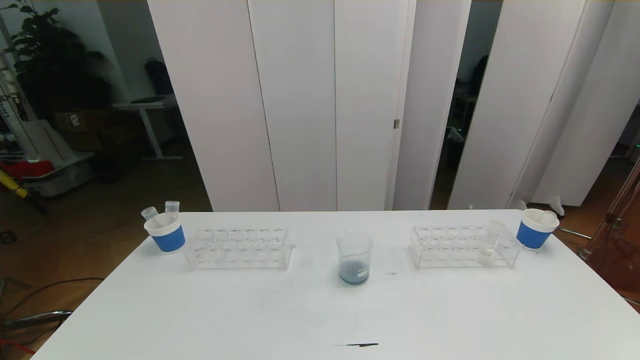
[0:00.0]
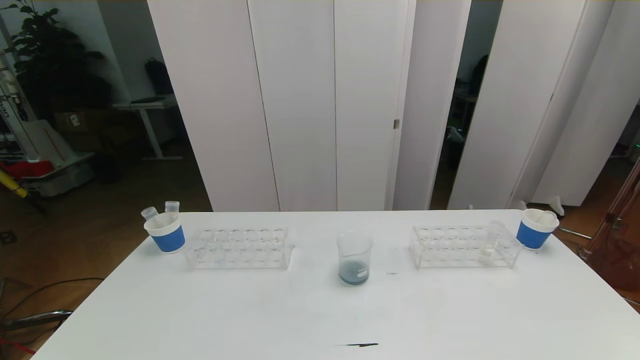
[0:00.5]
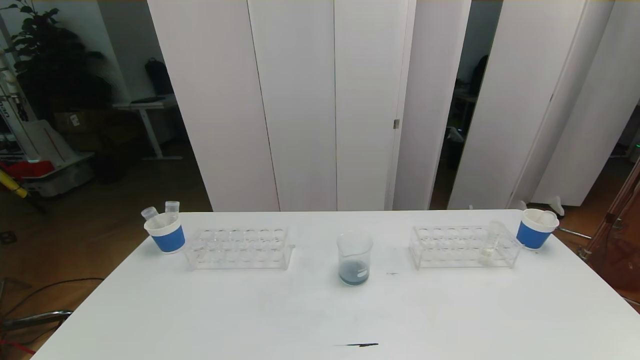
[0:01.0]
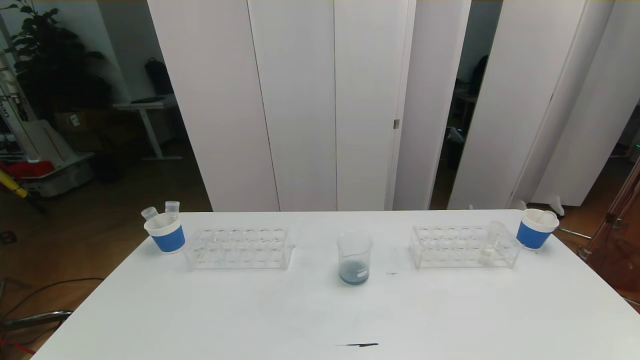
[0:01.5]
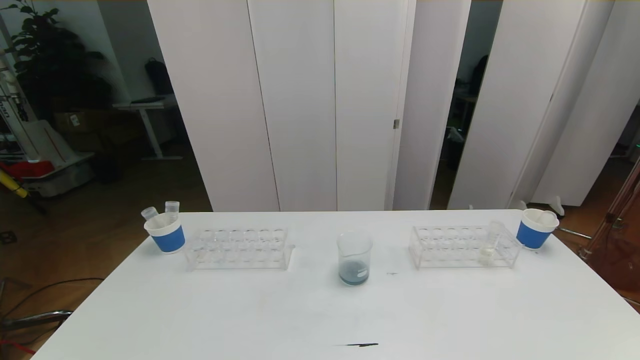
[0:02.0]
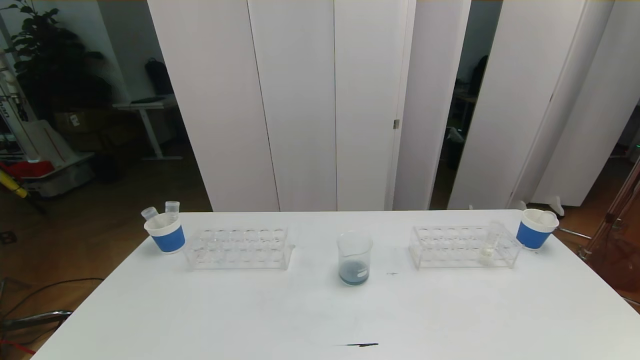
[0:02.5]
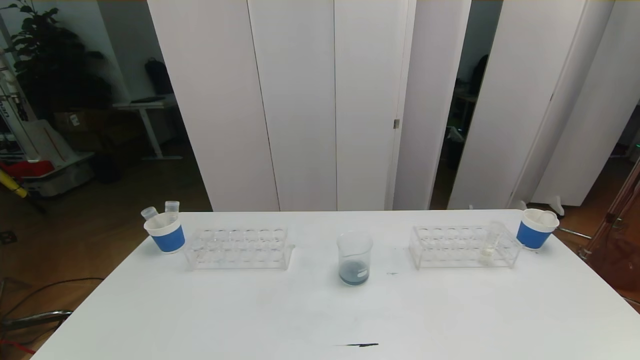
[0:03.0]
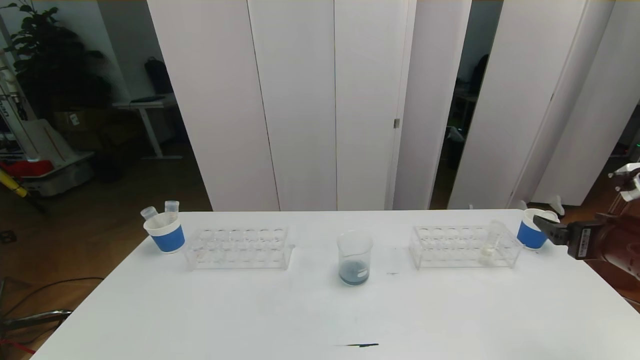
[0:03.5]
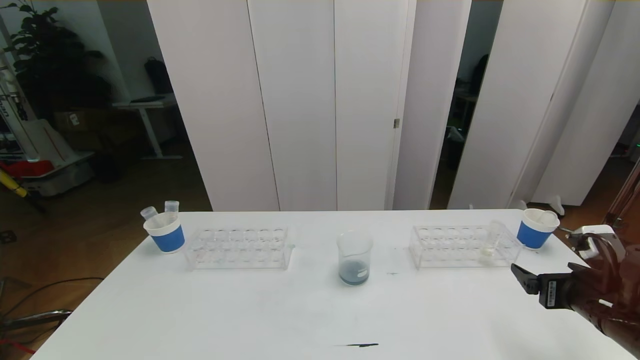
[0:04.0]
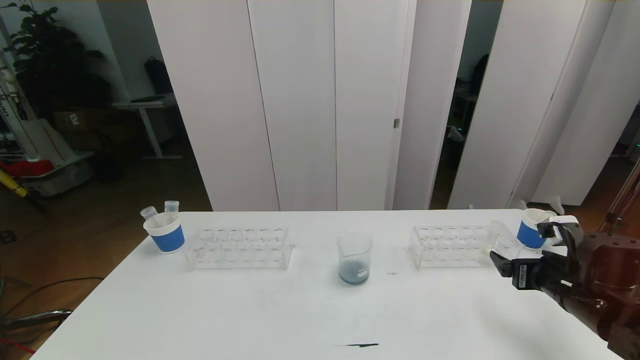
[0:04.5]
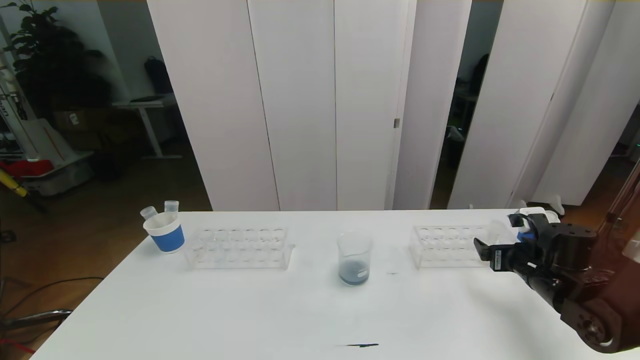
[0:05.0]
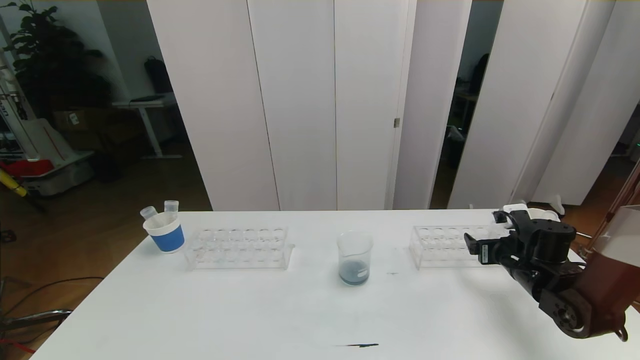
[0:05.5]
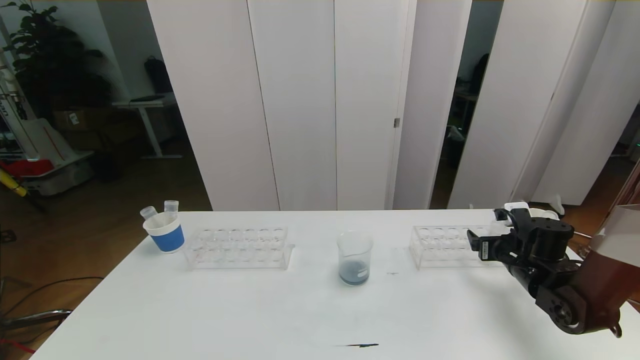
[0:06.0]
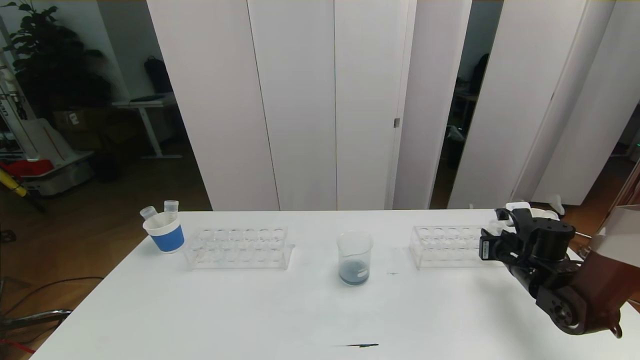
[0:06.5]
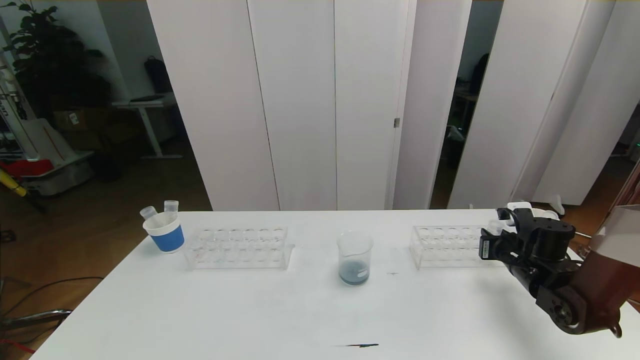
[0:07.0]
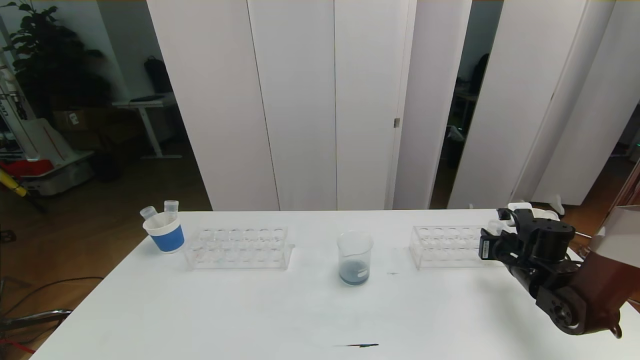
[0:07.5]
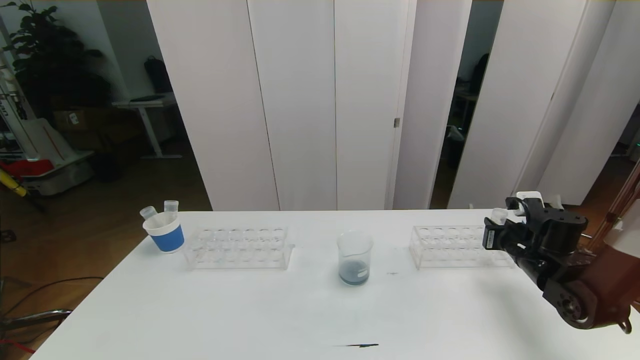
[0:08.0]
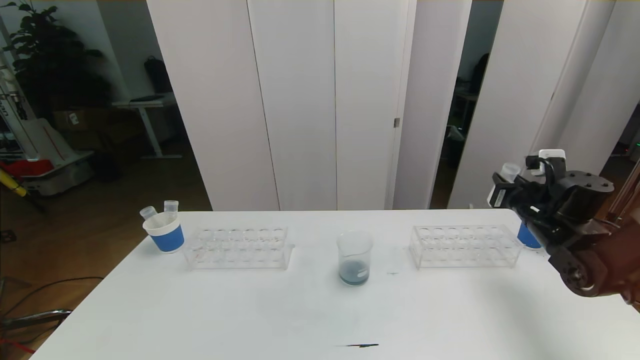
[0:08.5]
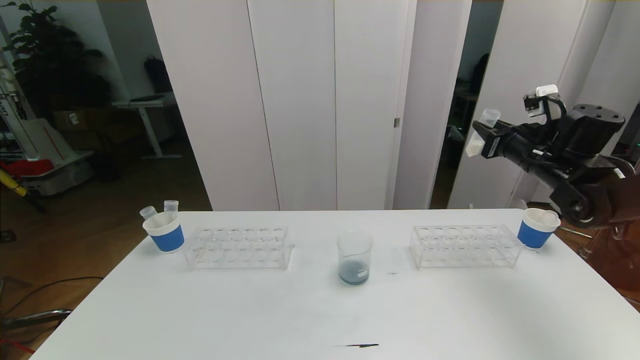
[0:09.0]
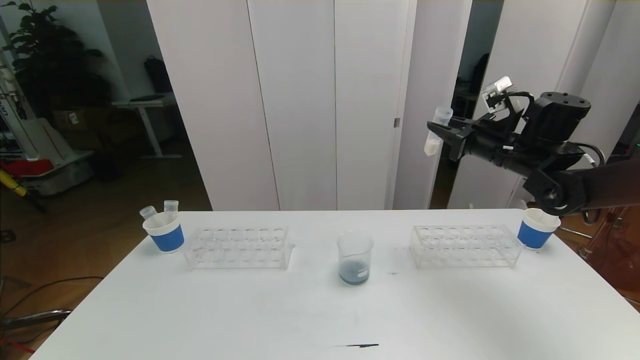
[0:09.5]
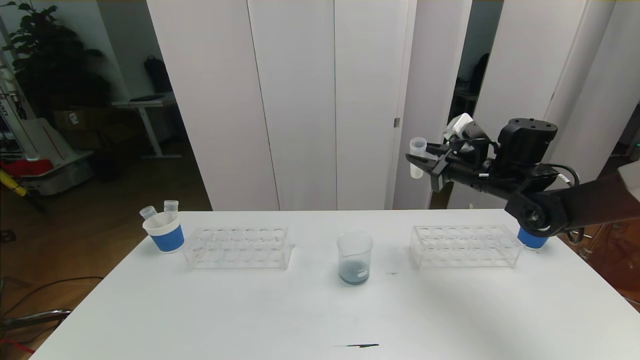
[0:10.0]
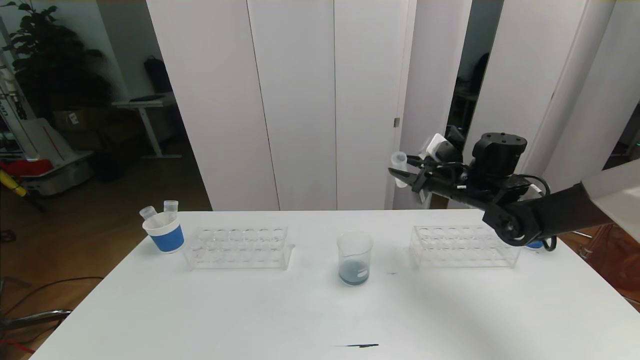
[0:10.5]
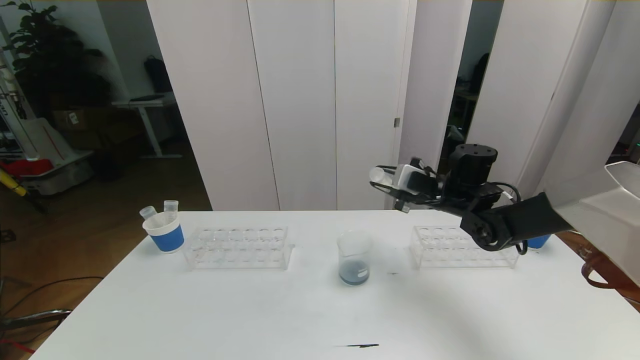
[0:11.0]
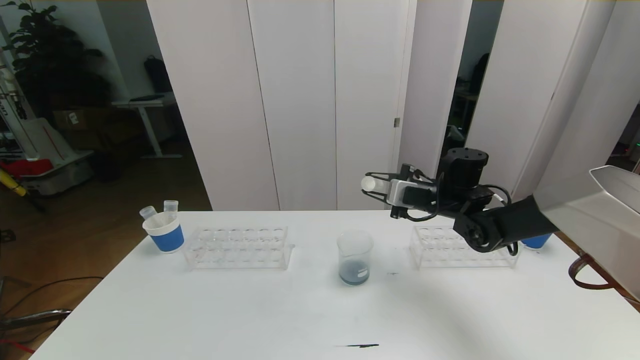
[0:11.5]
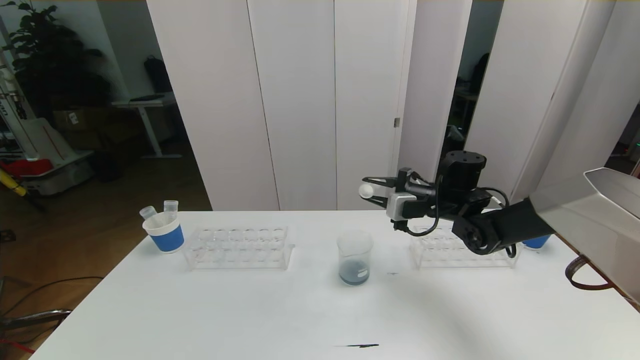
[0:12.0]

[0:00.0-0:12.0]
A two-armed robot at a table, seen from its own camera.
Task of the whole recording: pick up the test tube with red pigment the test tube with blue pigment and the test tube with white pigment by grippers and pour them into the beaker.
0:02.0 to 0:04.0: The right gripper travels forward by approximately 25 cm.
0:04.0 to 0:06.0: The right gripper heads forward and downward, covering roughly 15 cm.
0:06.0 to 0:08.0: The right gripper closes.
0:08.0 to 0:10.0: The right gripper shifts about 15 cm upward, to the left and forward.
0:10.0 to 0:12.0: The right gripper shifts approximately 10 cm to the left and downward.

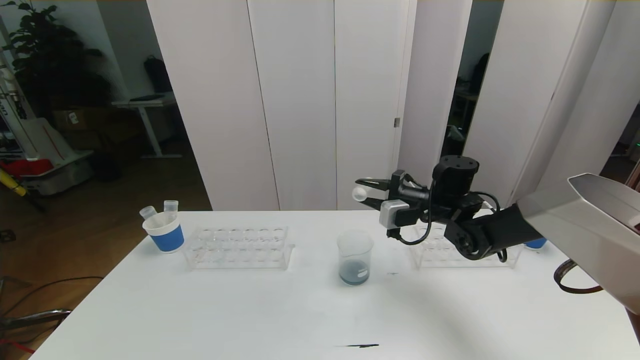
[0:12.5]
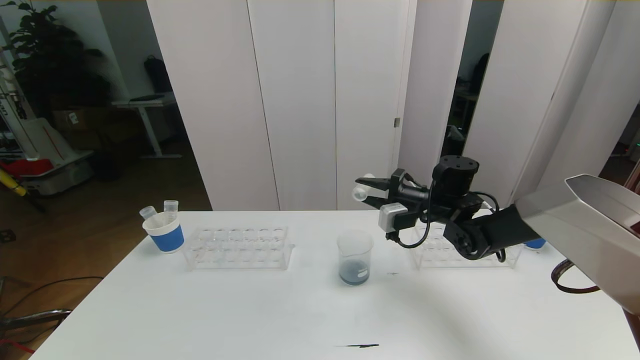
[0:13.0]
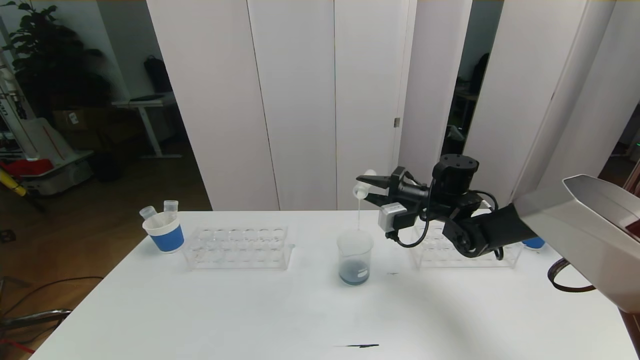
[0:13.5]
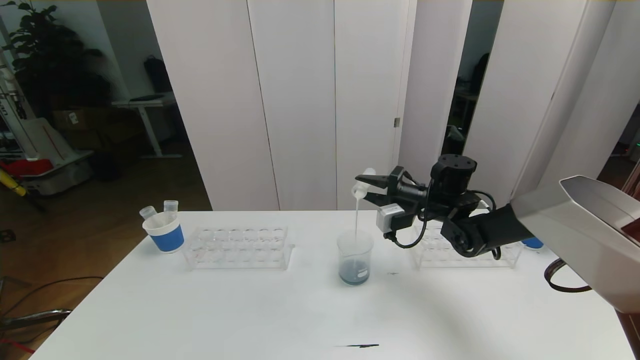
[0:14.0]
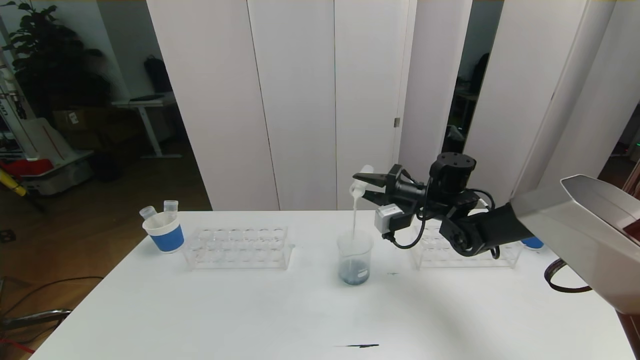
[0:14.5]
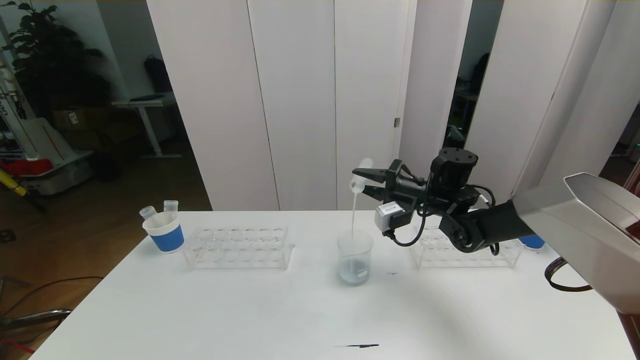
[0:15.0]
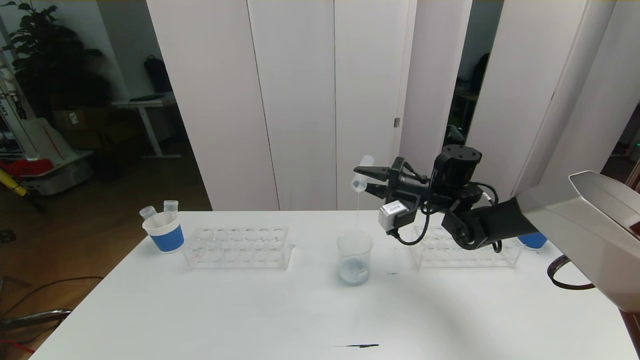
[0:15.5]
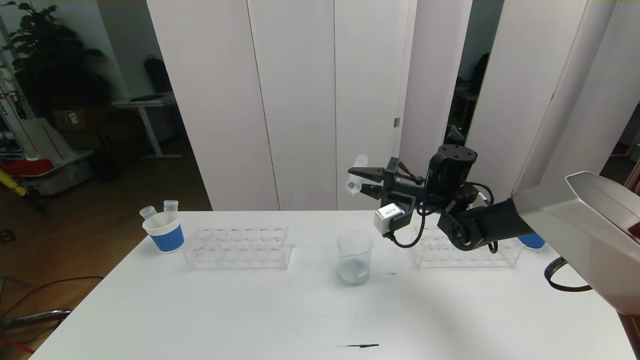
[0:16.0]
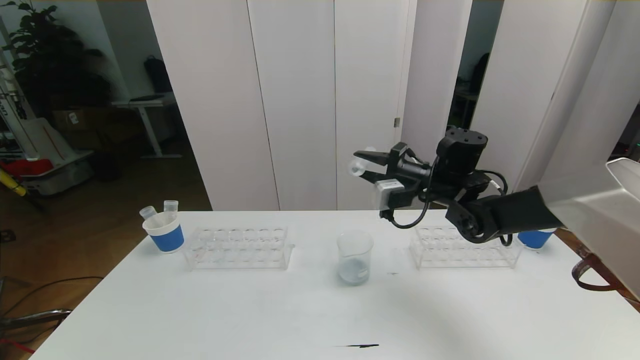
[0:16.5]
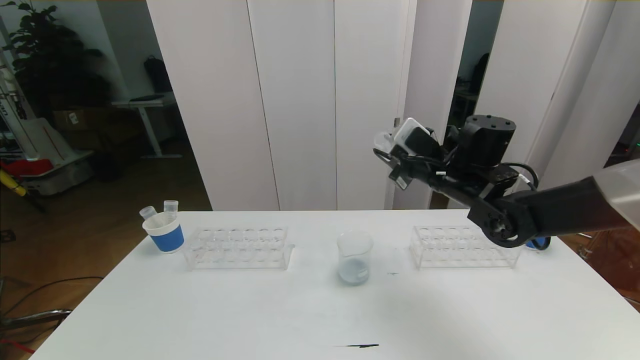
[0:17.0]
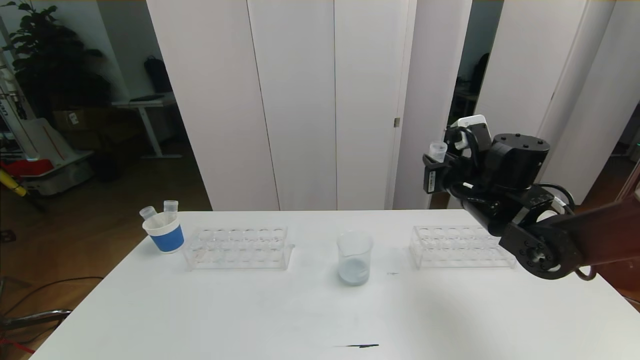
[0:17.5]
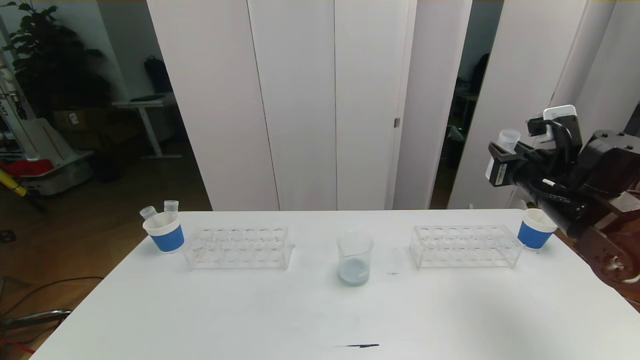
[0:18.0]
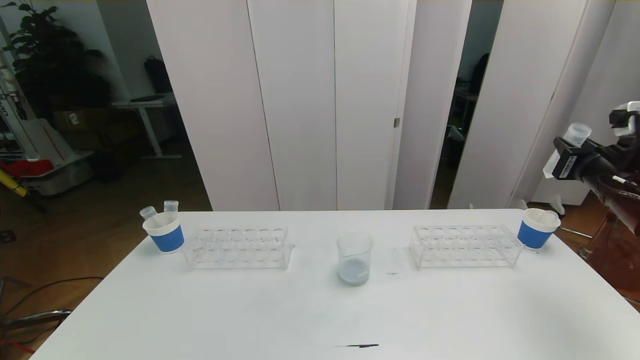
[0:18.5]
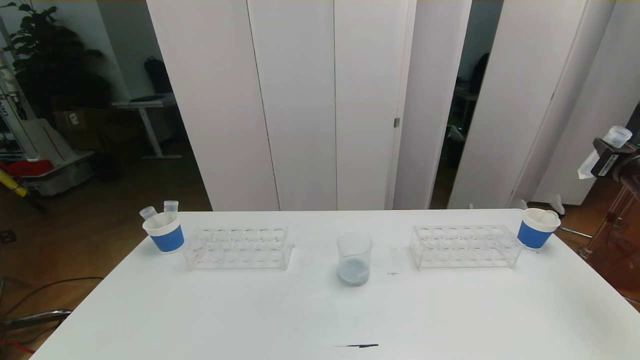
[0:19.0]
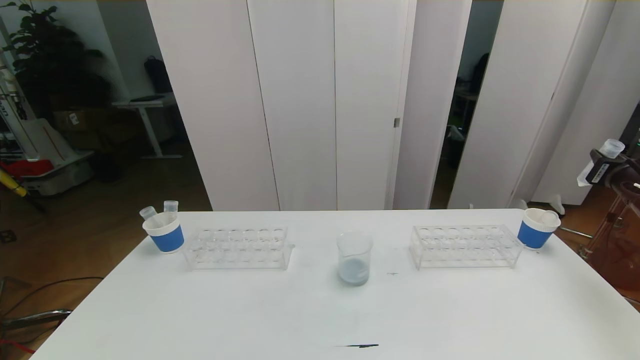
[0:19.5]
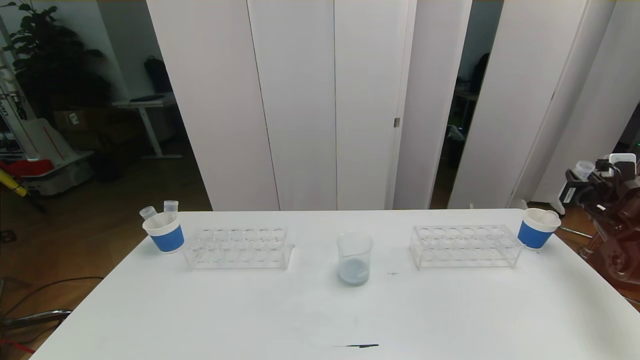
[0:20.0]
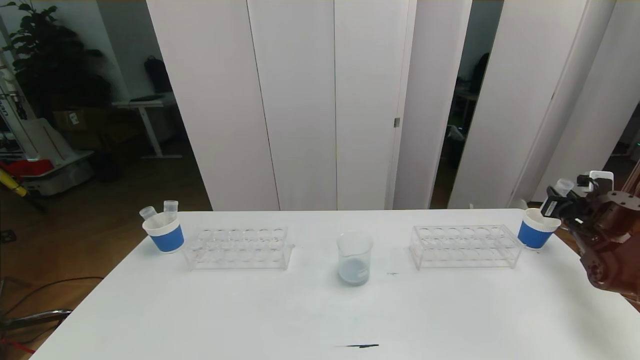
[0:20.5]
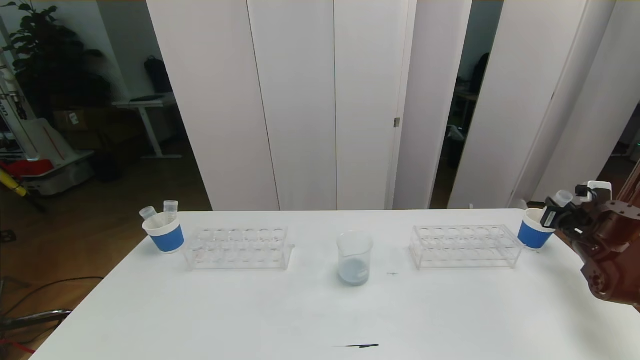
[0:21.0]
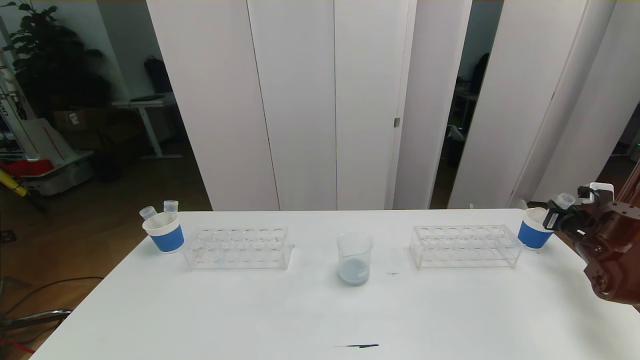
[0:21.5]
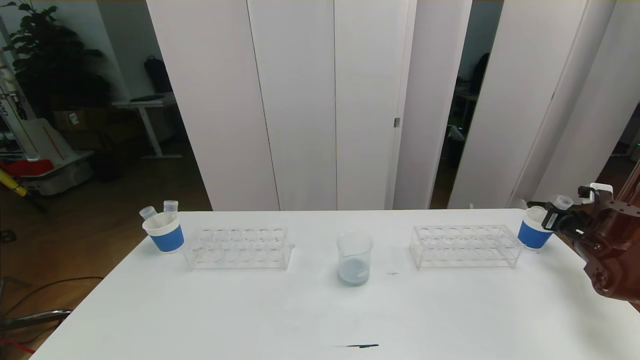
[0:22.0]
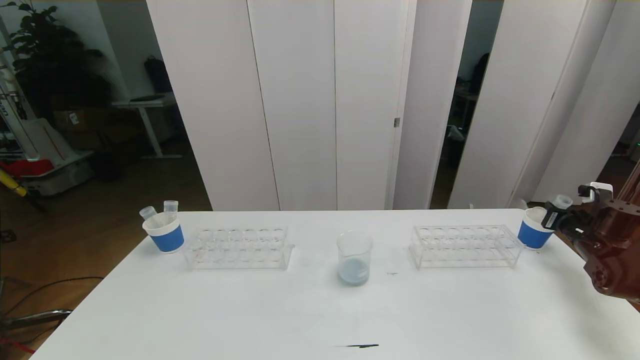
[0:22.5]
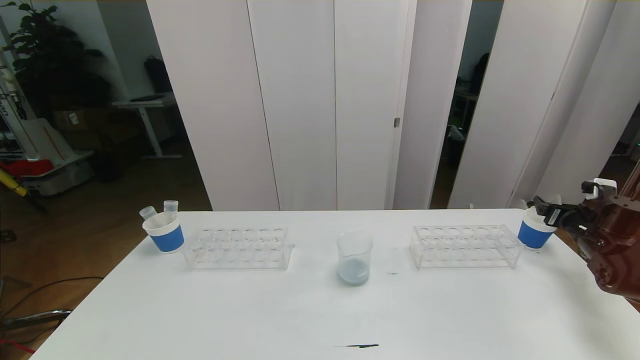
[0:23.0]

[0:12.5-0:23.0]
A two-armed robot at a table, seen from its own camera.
Task of the whole recording: pick up the test tube with red pigment the test tube with blue pigment and the test tube with white pigment by grippers and pour them into the beaker.
0:12.5 to 0:14.5: The grippers make only small movements.
0:14.5 to 0:16.5: The right gripper moves about 5 cm.
0:16.5 to 0:19.0: The right gripper is displaced to the right by roughly 30 cm.
0:19.0 to 0:21.0: The right gripper is displaced downward and forward by about 15 cm.
0:21.0 to 0:23.0: The right gripper opens up.
